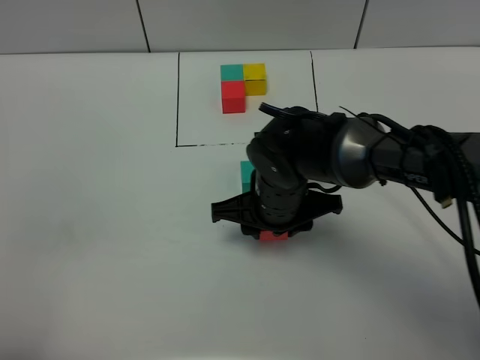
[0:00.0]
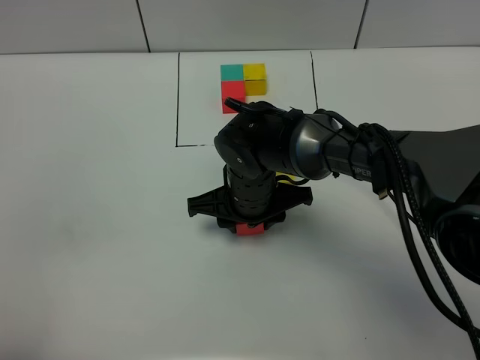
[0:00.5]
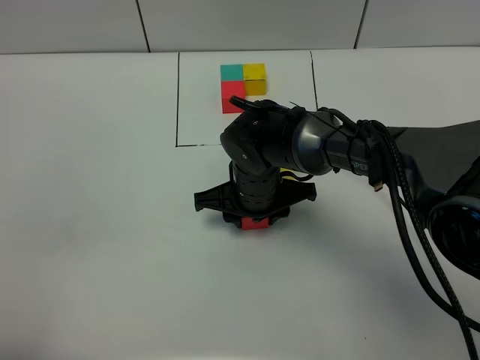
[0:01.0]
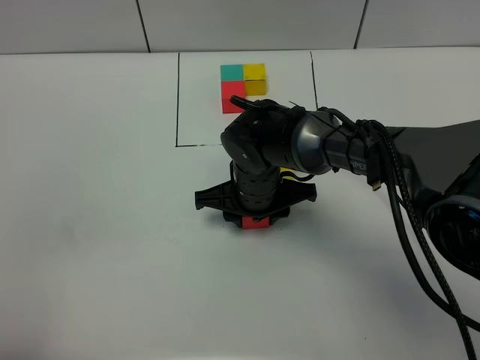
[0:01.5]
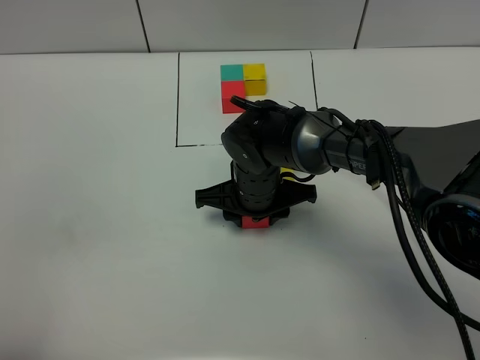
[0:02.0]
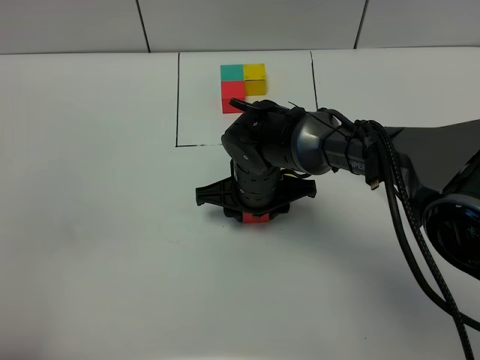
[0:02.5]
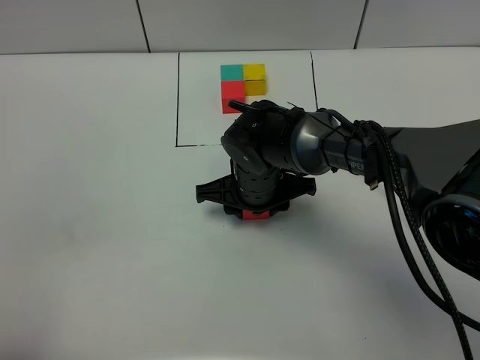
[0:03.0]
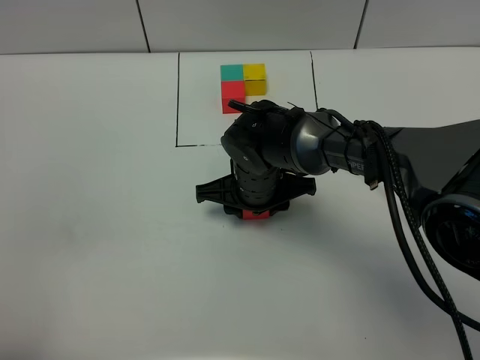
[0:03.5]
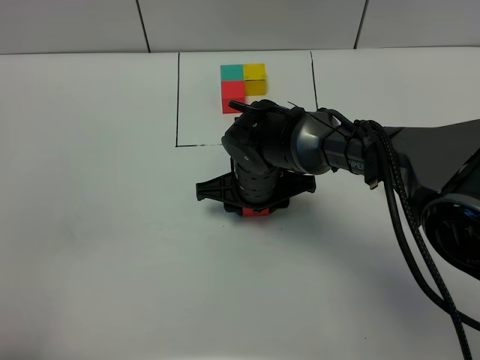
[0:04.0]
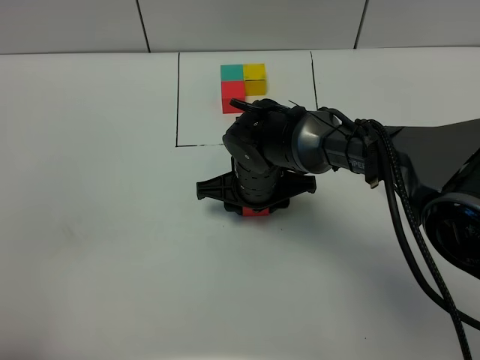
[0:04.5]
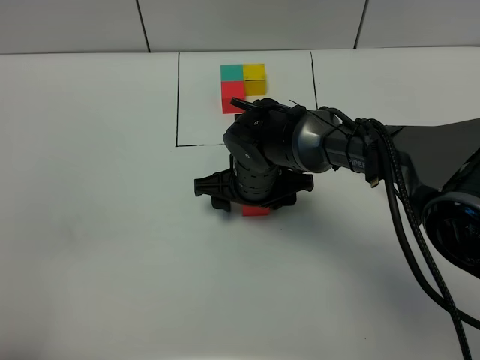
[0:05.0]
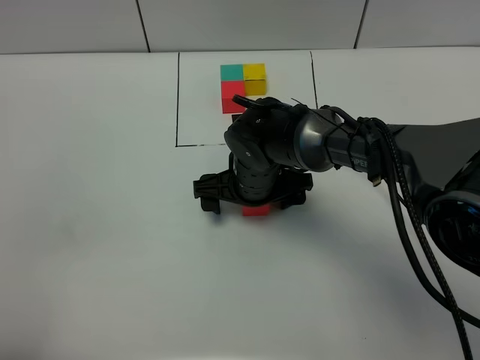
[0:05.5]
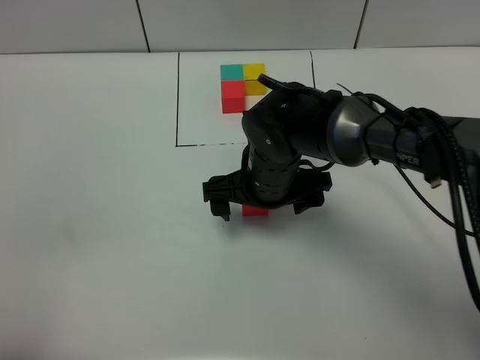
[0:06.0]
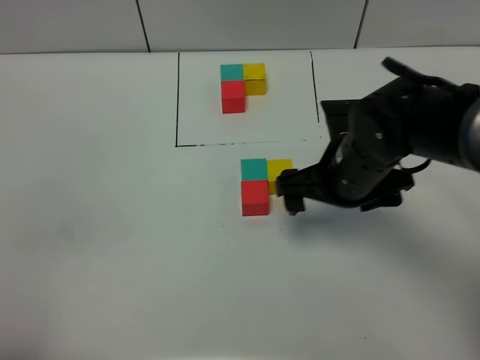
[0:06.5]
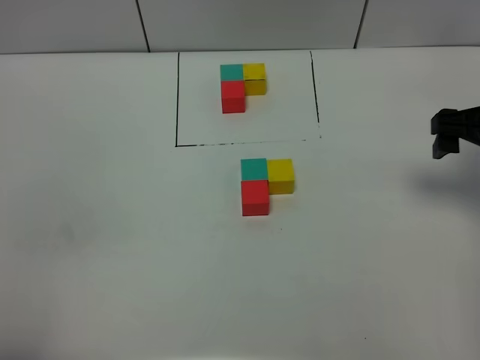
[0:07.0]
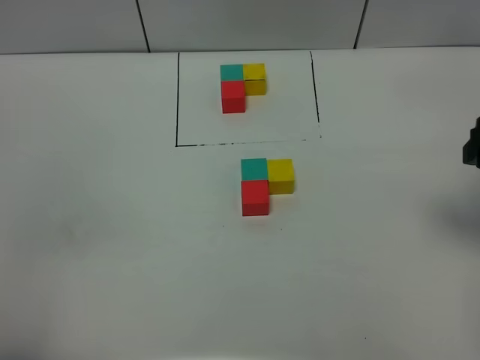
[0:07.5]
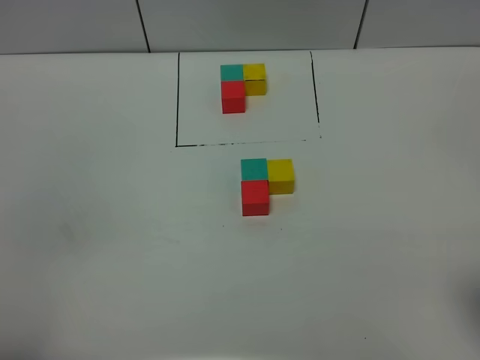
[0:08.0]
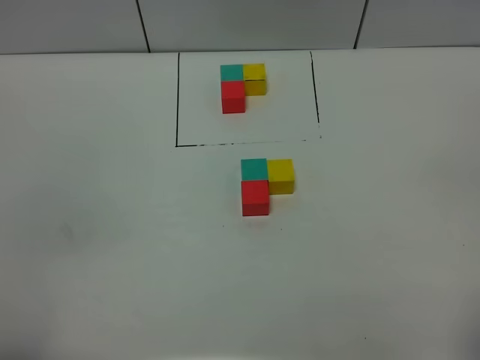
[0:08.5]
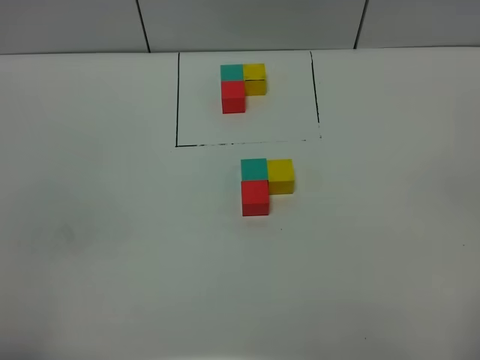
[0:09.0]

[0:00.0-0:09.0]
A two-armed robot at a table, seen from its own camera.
Task of the whole recording: According to the building block template in front, assemble the scattered blocks together.
Step, 0:00.0 to 0:04.5: Put the yellow build block on the right of the green build block.
0:00.0 to 0:02.0: The right gripper changes place by approximately 5 cm.
0:02.0 to 0:04.5: Both grippers stay about where they are.
0:04.5 to 0:07.0: The right gripper heads to the right and upward, covering about 30 cm, and opens its fingers.
0:07.0 to 0:09.0: The right gripper goes roughly 30 cm backward.

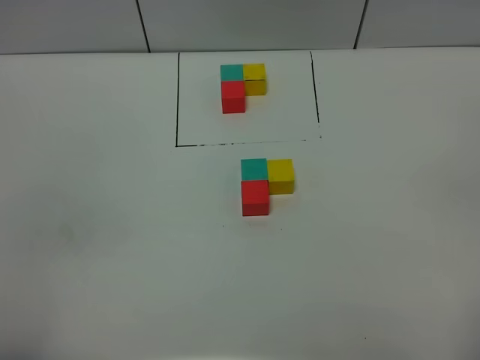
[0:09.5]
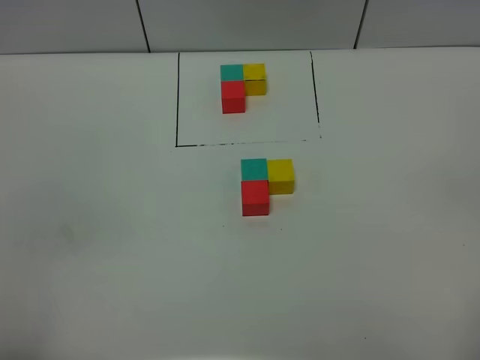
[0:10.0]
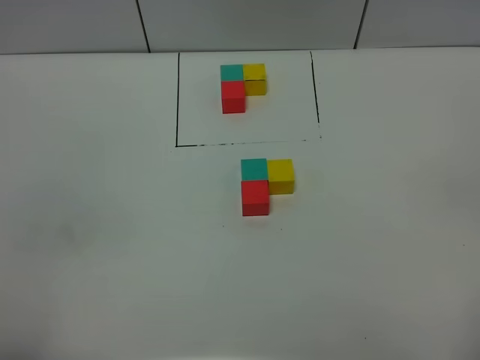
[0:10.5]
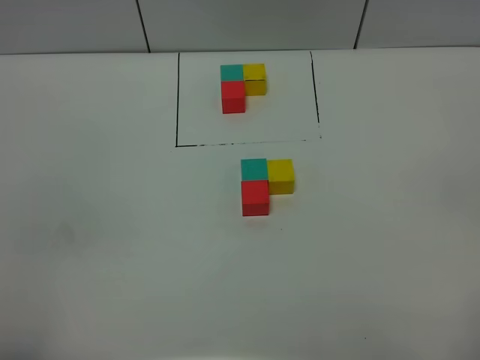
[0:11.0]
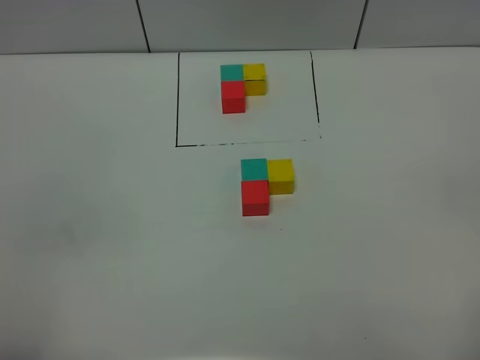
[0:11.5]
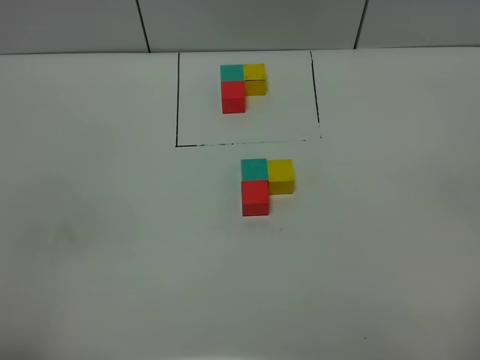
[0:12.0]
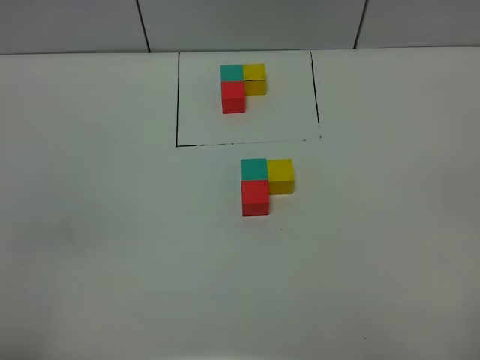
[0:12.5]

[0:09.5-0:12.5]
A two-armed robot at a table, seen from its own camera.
Task of the whole recording: According to the building block template in front, assemble the scattered blocks together.
0:09.5 to 0:12.5: The two grippers keep their place.

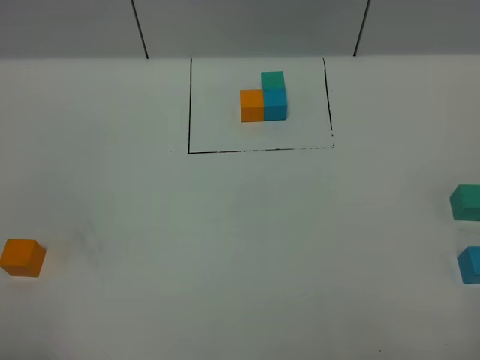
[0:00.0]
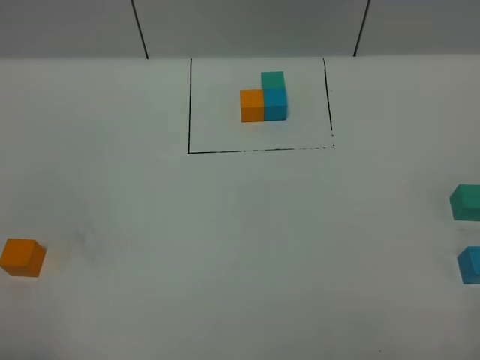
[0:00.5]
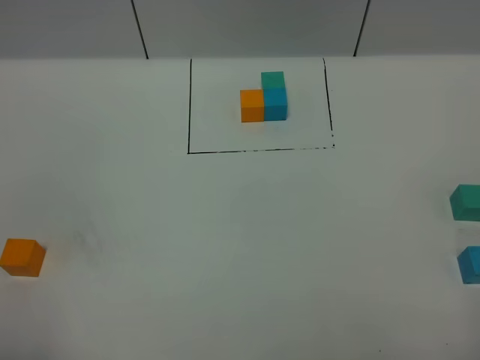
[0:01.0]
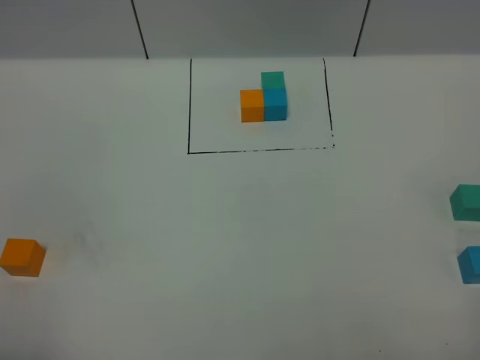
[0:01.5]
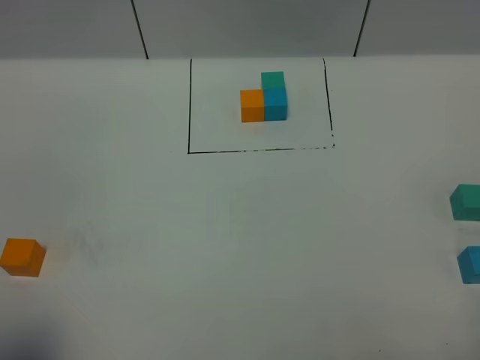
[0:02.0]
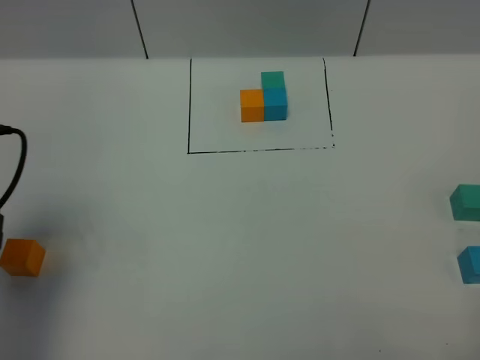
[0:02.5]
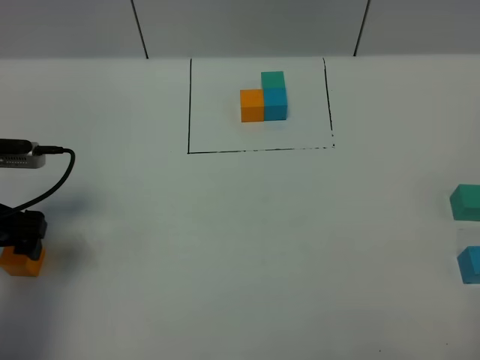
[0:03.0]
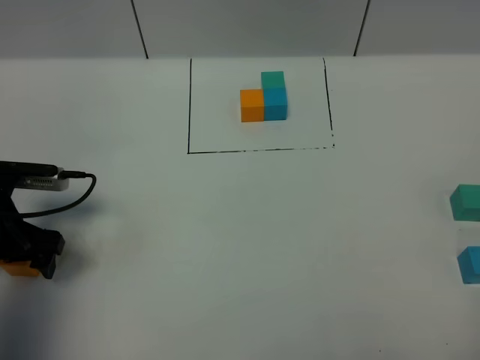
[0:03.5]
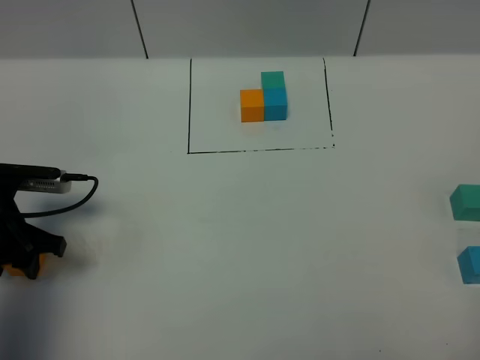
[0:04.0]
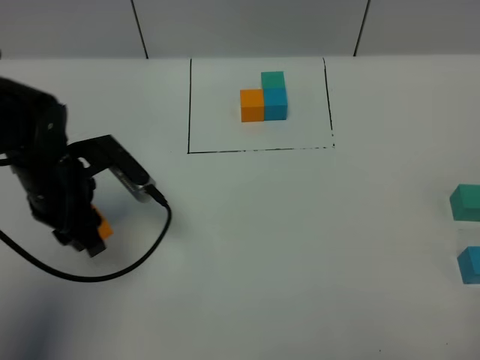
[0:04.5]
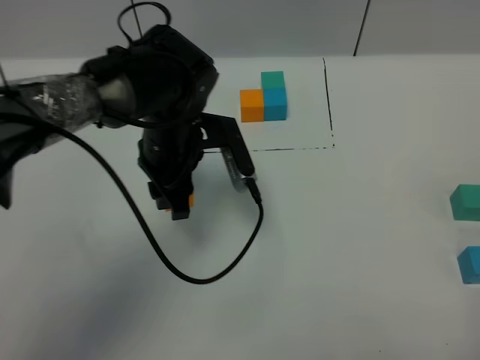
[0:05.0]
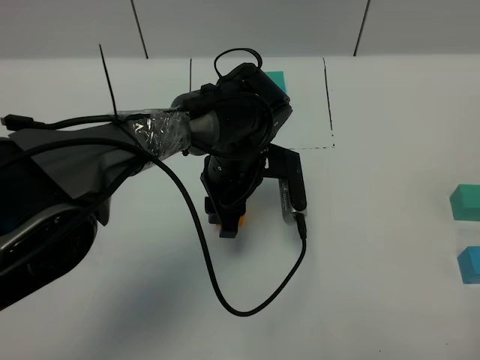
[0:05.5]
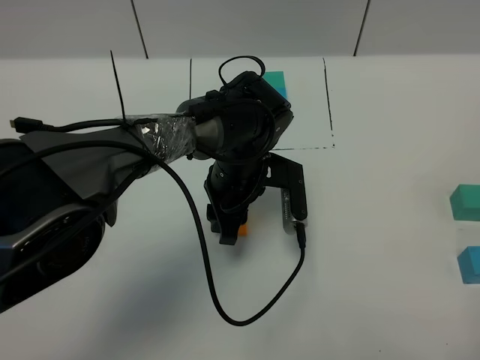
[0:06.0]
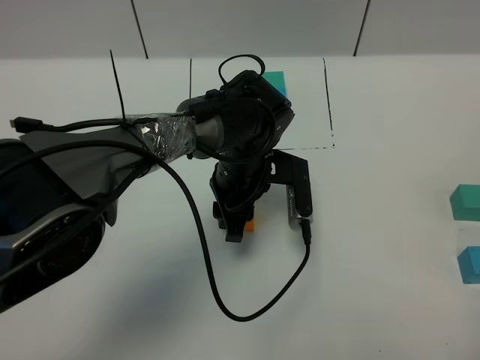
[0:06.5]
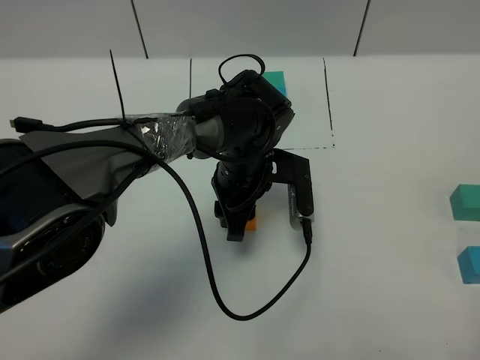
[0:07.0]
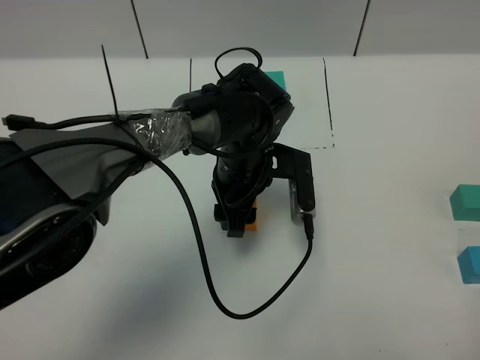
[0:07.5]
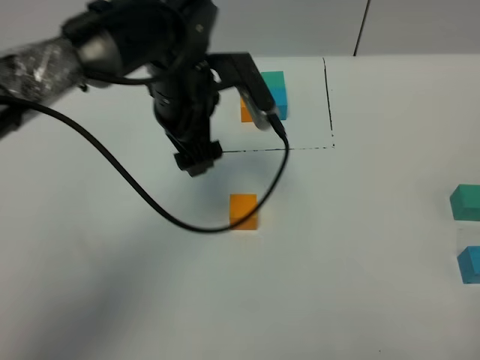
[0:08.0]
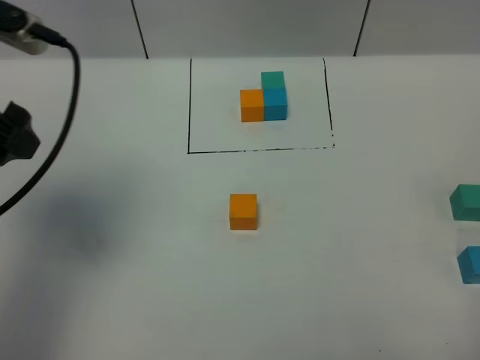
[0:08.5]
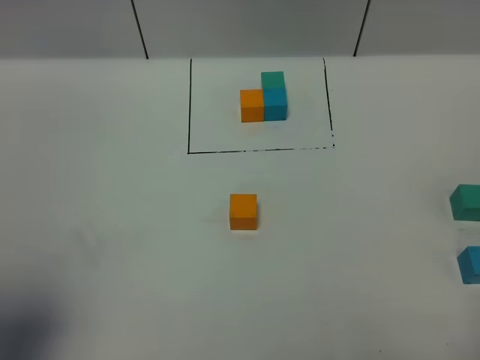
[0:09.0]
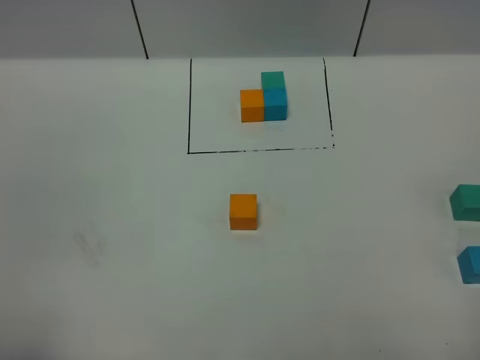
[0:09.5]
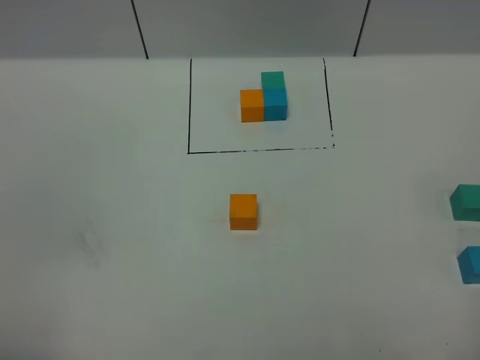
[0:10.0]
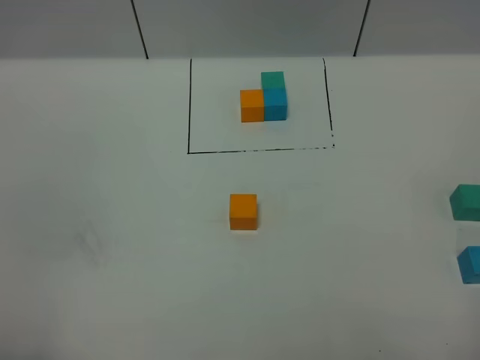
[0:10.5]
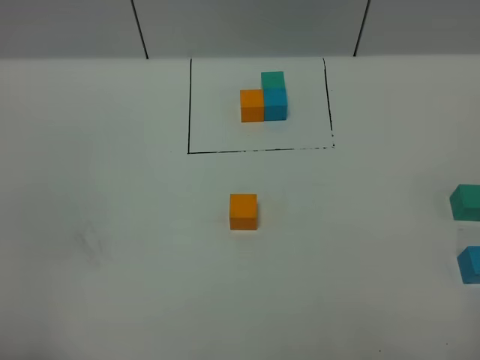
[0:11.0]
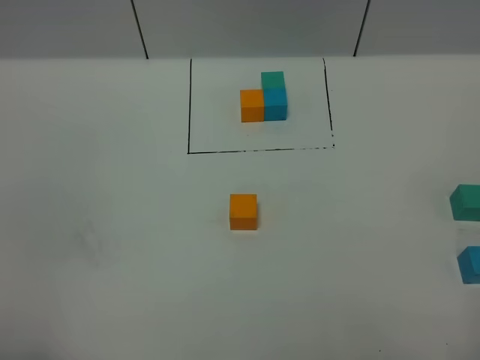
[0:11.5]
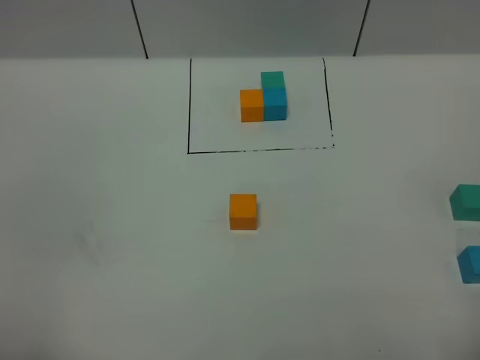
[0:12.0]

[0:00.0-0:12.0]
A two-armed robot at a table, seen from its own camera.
Task of the whole recording: According to the building block template in front, assemble the scattered blocks together.
Step, 0:00.0 to 0:07.0: Put the orange build block in the center of the table.
0:02.0 to 0:04.0: The left gripper goes about 30 cm forward and downward, and closes.
0:04.0 to 0:06.0: The left gripper shifts approximately 30 cm to the right.
0:06.0 to 0:08.0: The left gripper heads upward and to the left, covering approximately 15 cm, and opens.
0:08.0 to 0:10.0: The left gripper goes some 40 cm backward and to the left.

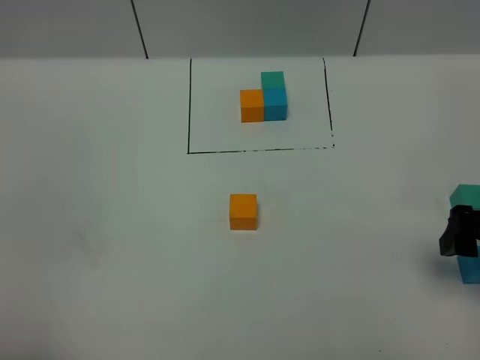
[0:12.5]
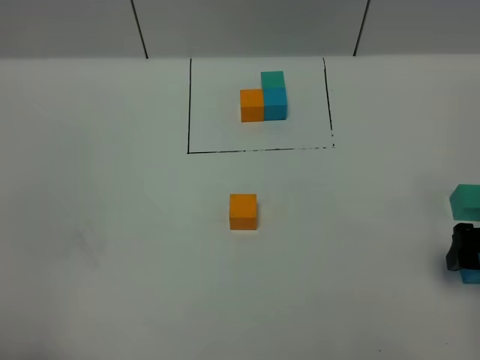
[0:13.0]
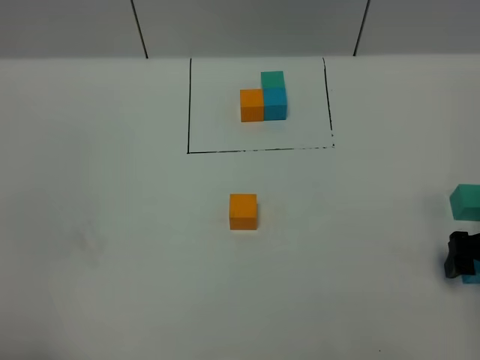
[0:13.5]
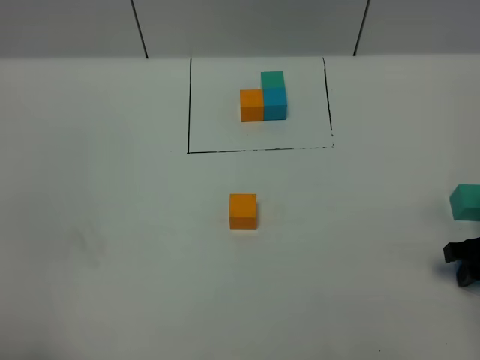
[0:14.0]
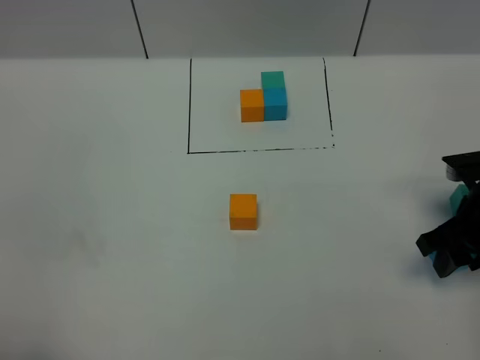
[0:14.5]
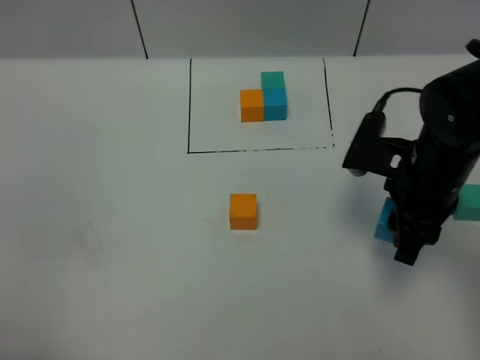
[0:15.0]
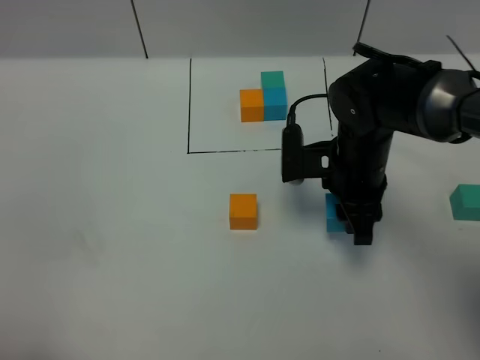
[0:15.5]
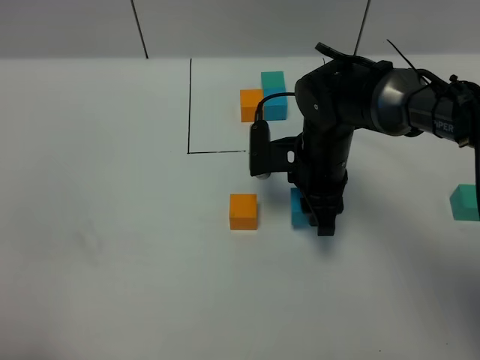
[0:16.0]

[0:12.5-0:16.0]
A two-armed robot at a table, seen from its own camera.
Task of the whole recording: According to the building block template in front, assemble the scattered blocks together.
0:12.5 to 0:14.5: The right gripper is displaced downward and forward by approximately 10 cm, and closes.
0:14.5 to 0:16.0: The right gripper goes about 20 cm to the left and forward.
